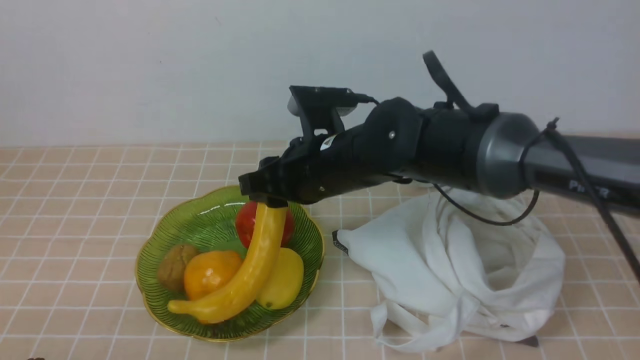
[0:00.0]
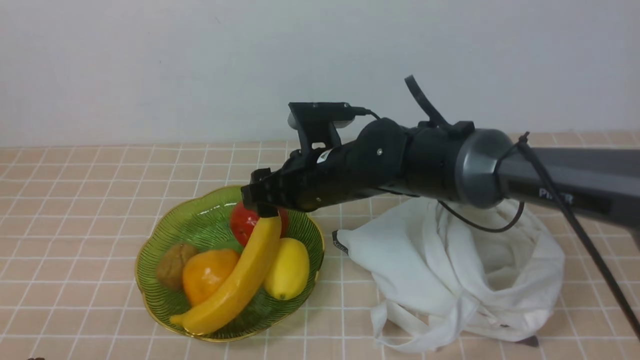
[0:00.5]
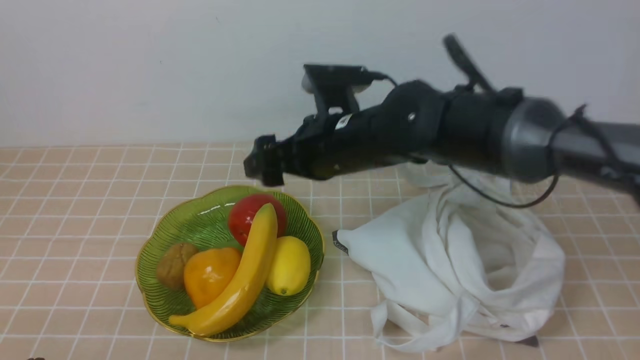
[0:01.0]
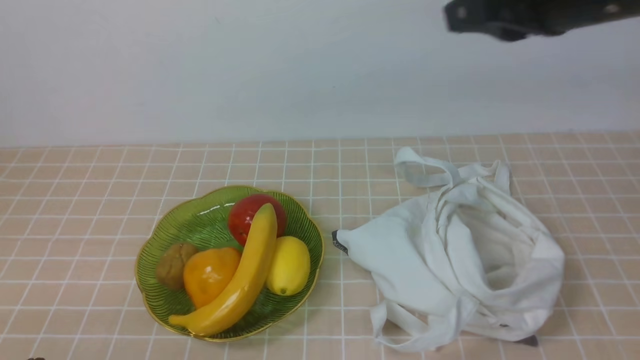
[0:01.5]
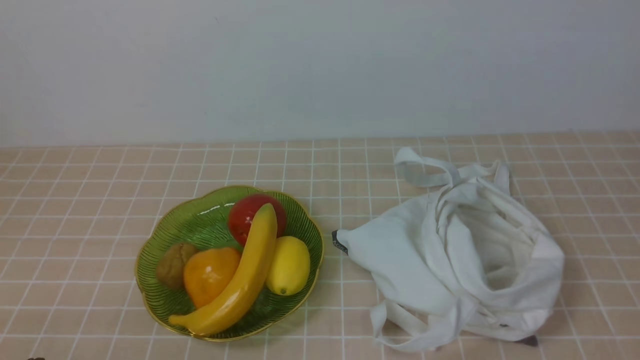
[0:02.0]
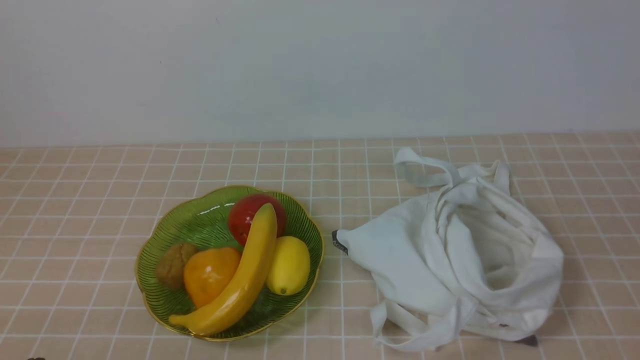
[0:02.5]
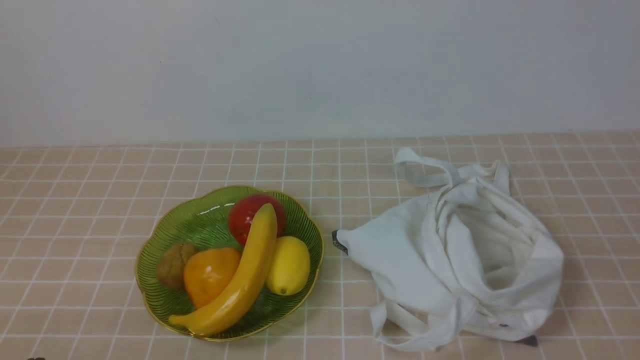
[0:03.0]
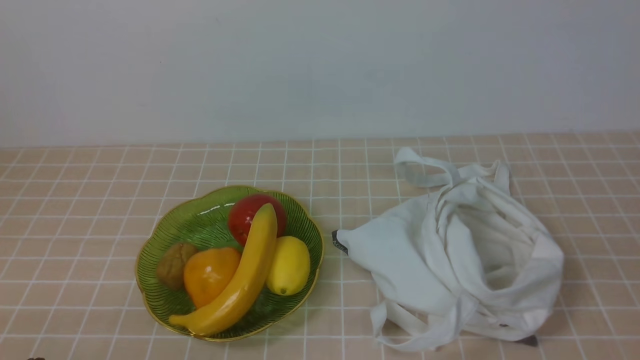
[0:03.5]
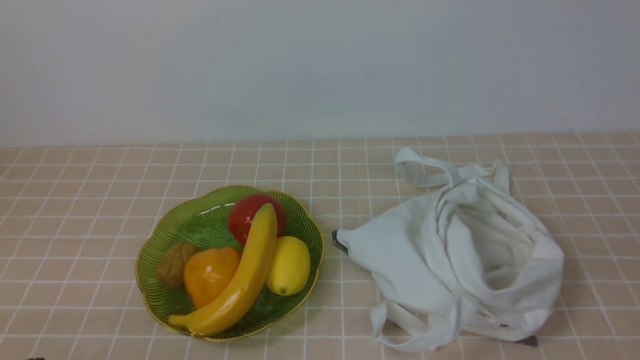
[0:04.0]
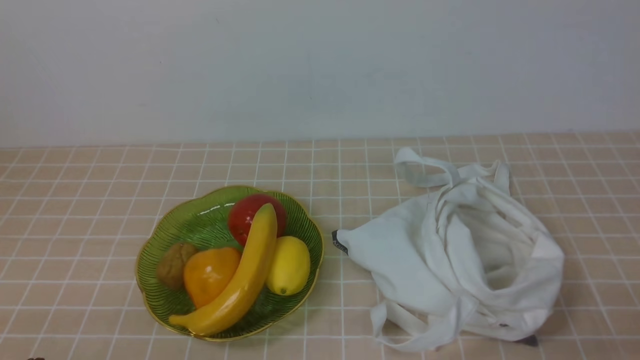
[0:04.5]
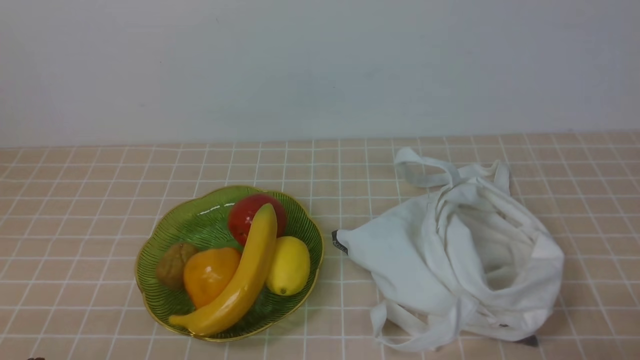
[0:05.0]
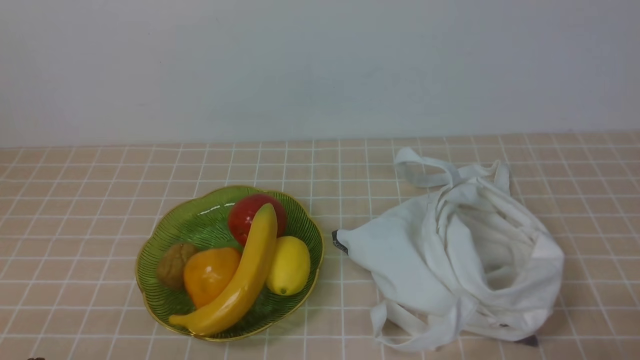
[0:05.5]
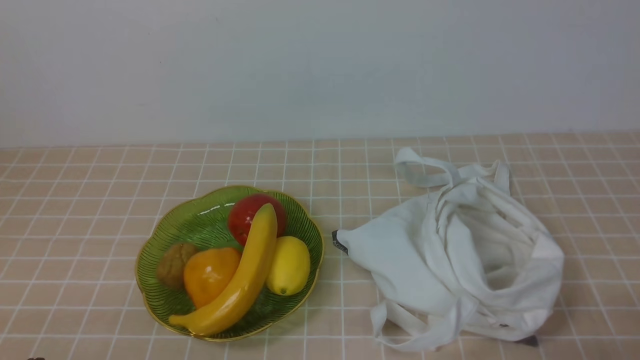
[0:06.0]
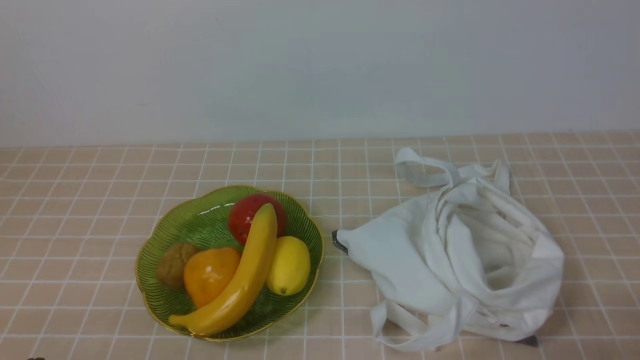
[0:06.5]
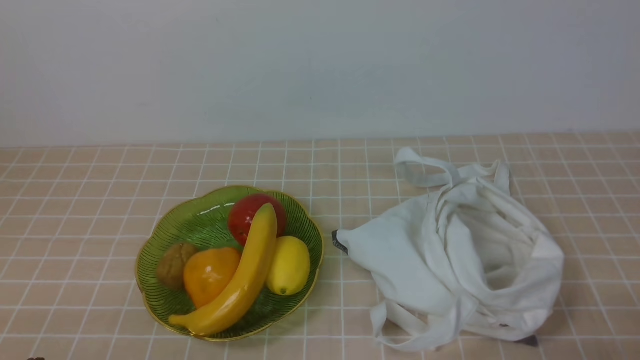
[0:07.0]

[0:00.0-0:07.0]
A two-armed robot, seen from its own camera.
0:00.0 to 0:02.0: The right gripper is displaced to the right, upward and backward by about 35 cm, and closes up.
0:05.0 to 0:07.0: Neither gripper changes place.

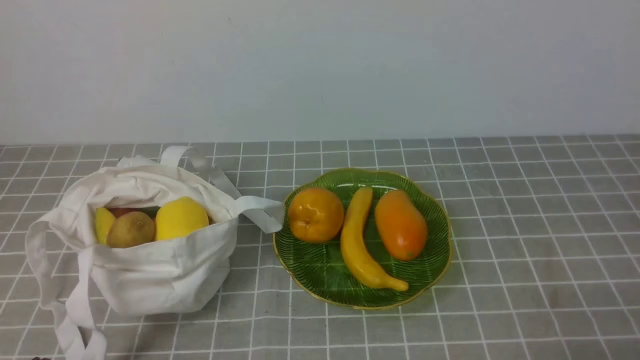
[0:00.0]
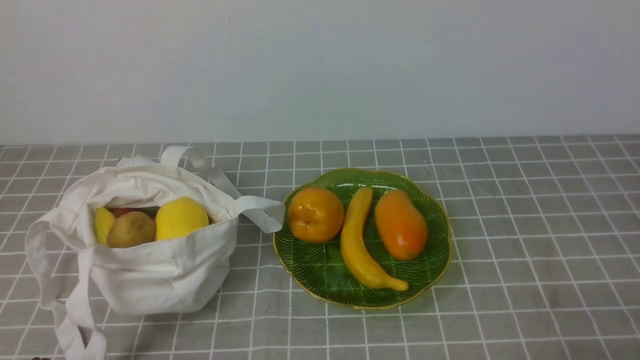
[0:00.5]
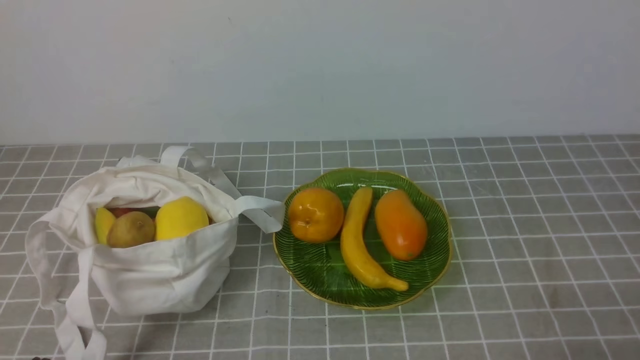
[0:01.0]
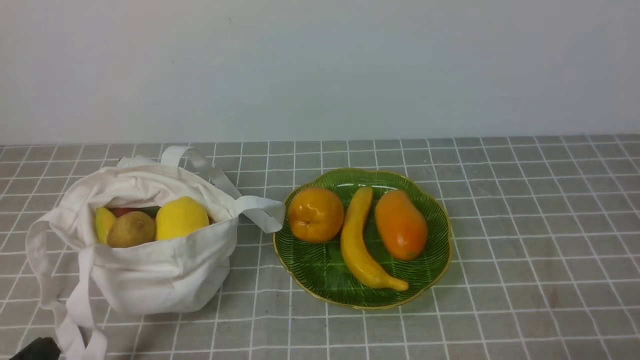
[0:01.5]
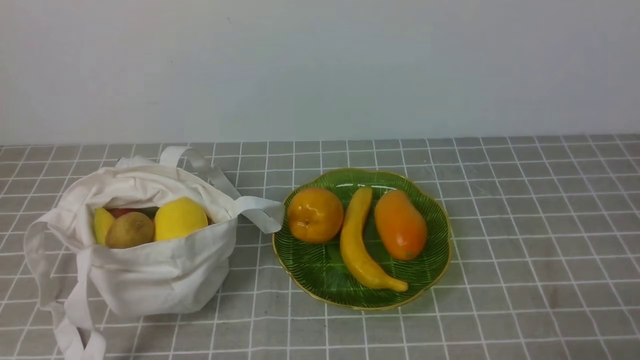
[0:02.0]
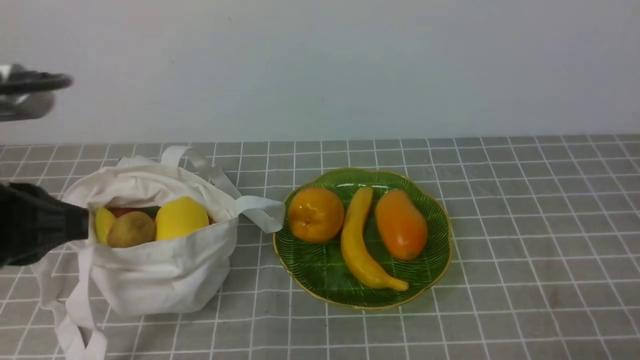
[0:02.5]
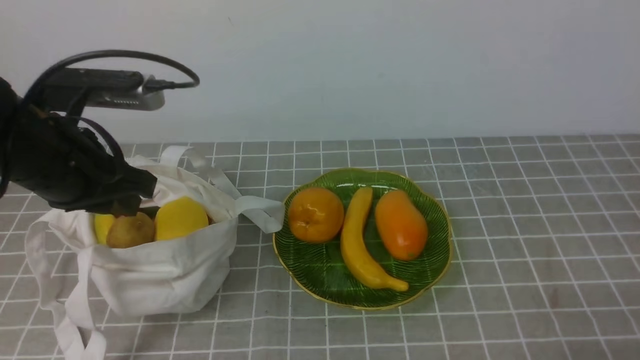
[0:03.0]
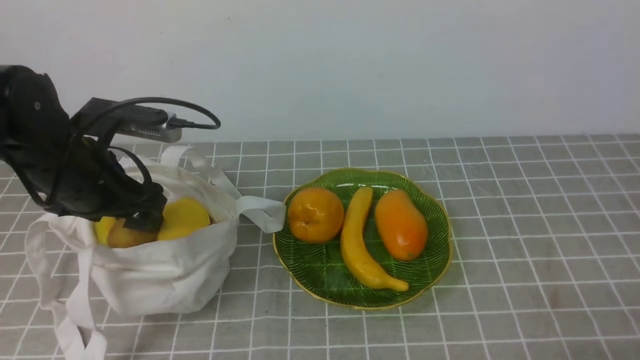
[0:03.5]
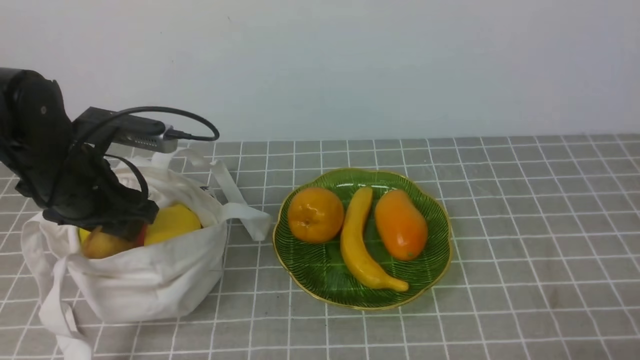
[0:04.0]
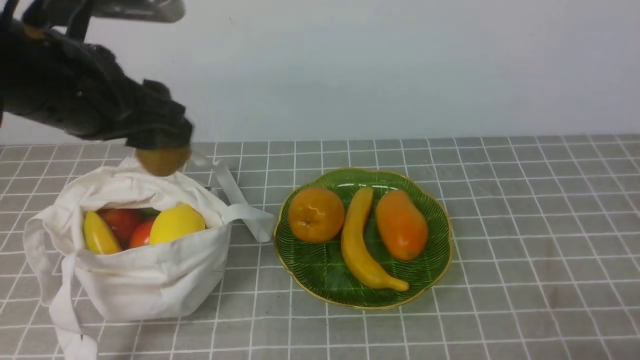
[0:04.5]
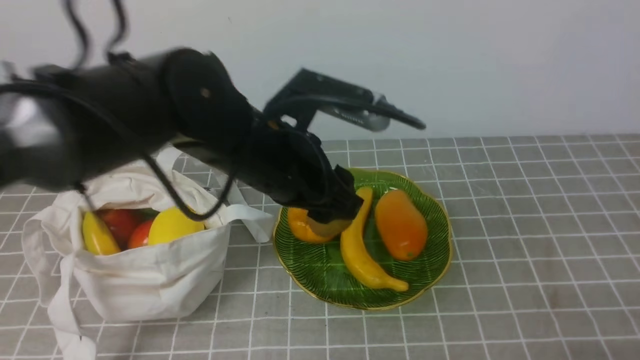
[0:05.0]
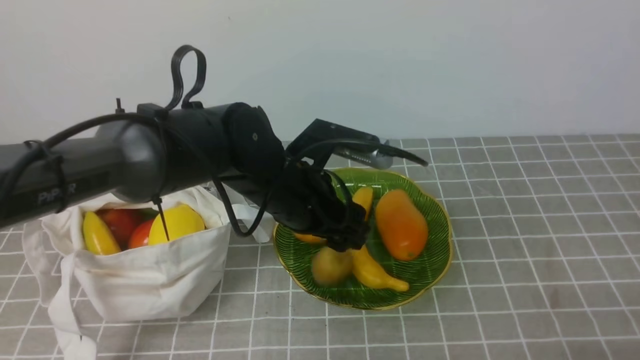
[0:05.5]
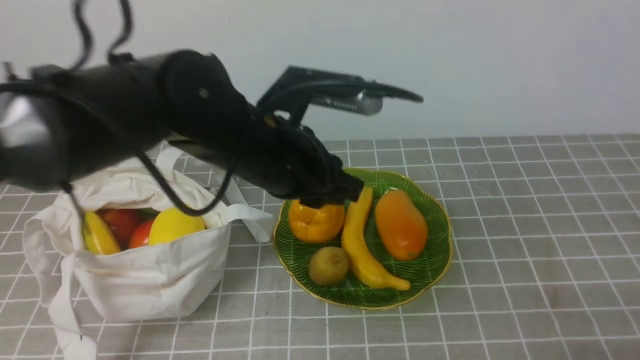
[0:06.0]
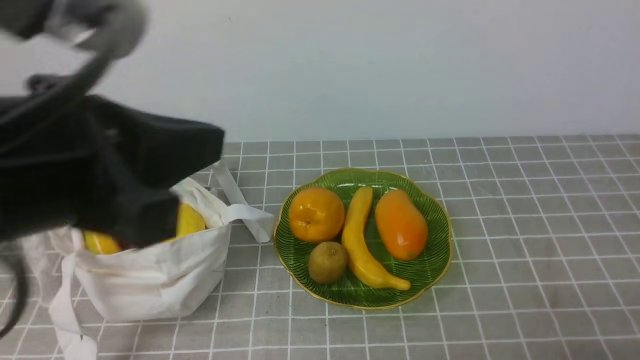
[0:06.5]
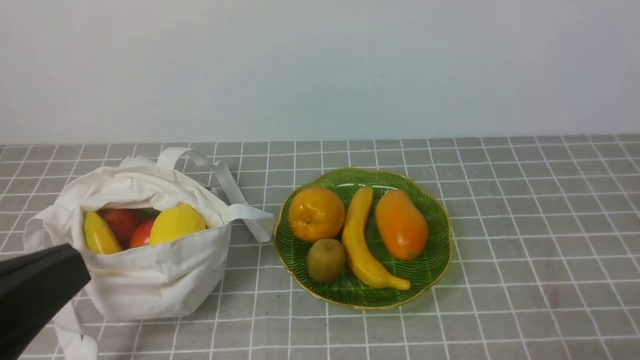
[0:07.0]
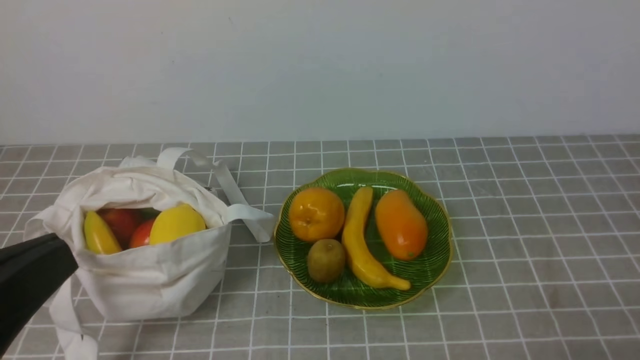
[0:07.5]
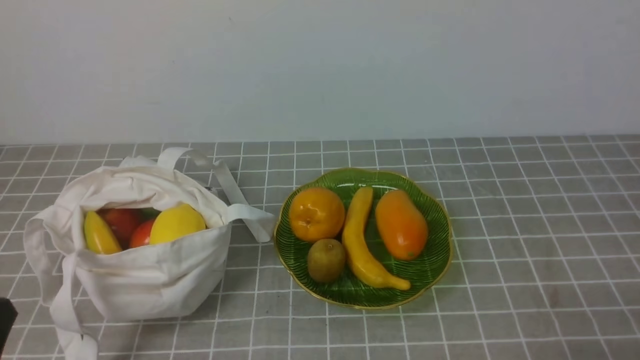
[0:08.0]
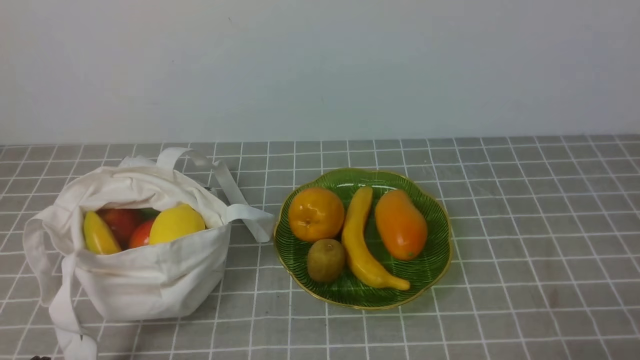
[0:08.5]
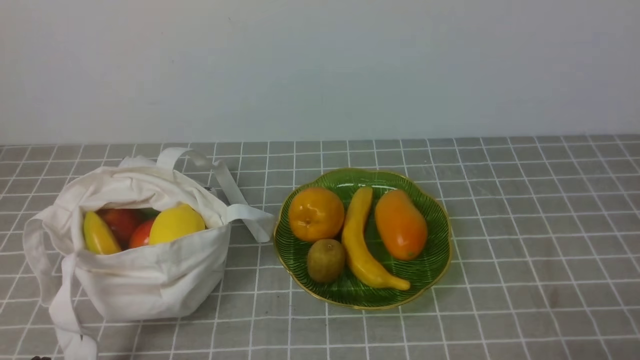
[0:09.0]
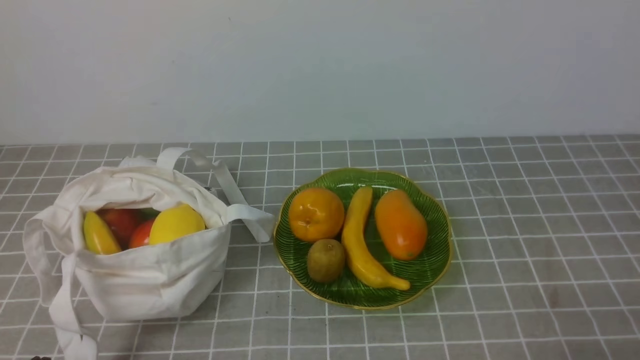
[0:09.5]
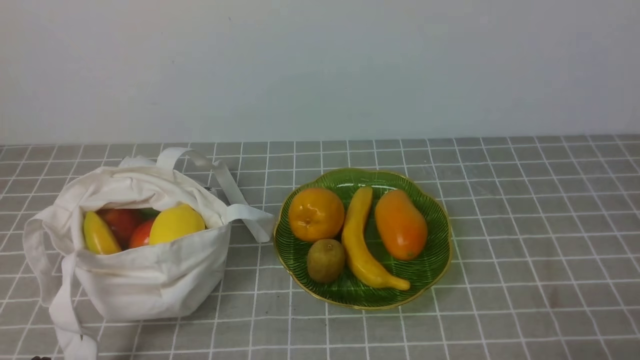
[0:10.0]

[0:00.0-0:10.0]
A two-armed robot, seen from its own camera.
Step, 0:00.0 to 0:03.5: use the left arm to grab a kiwi from the bag.
Step, 0:04.5 to 0:05.5: use the left arm to put the kiwi into the empty plate on the right.
0:02.0 to 0:04.0: The left gripper is displaced forward by about 25 cm, and opens up.
0:04.0 to 0:06.0: The left gripper heads to the right, covering roughly 20 cm.
0:06.0 to 0:08.0: The left gripper goes roughly 30 cm backward and to the left, and closes.

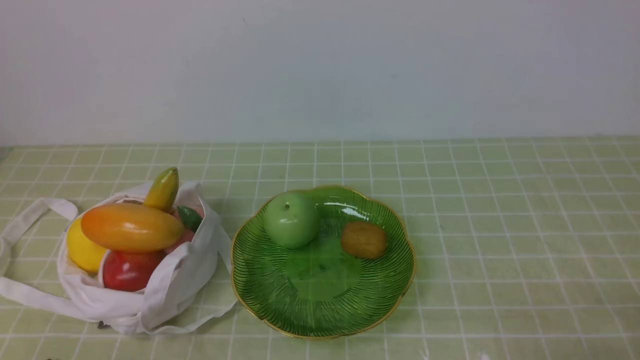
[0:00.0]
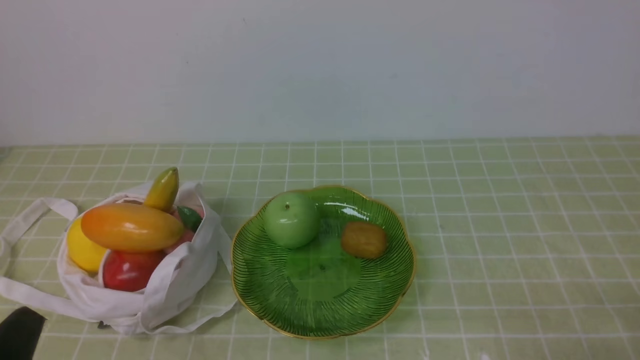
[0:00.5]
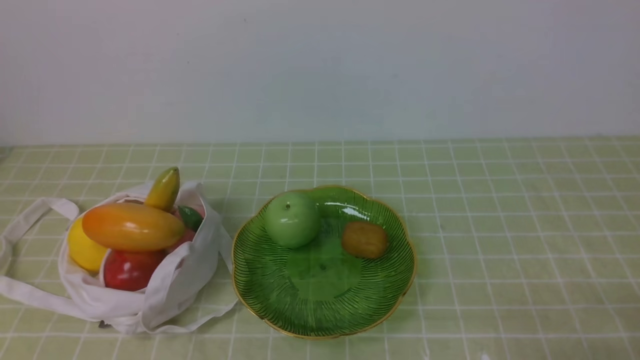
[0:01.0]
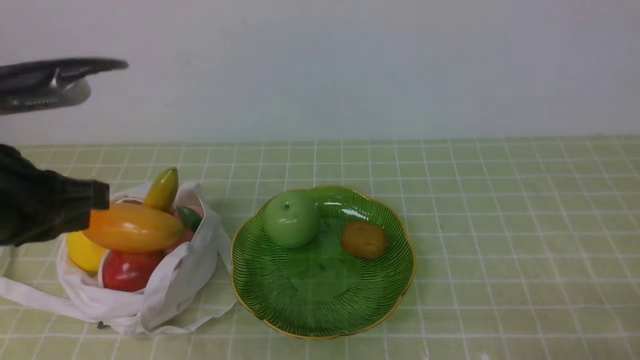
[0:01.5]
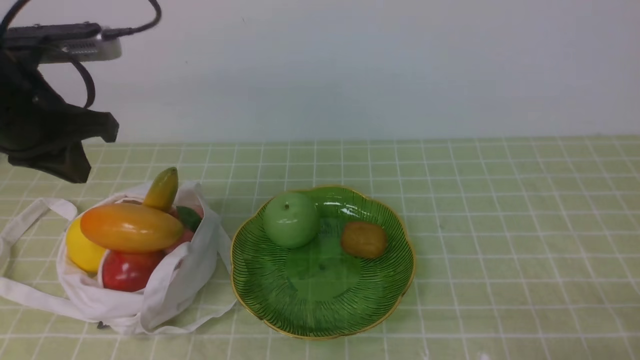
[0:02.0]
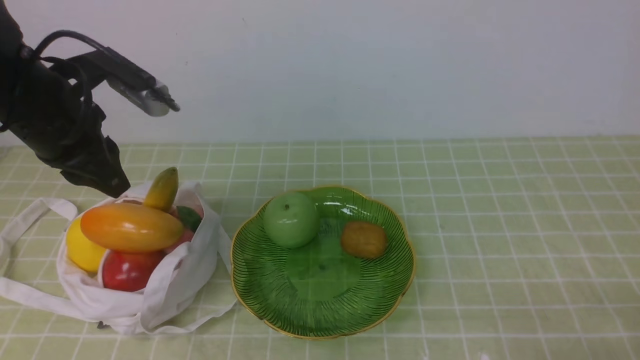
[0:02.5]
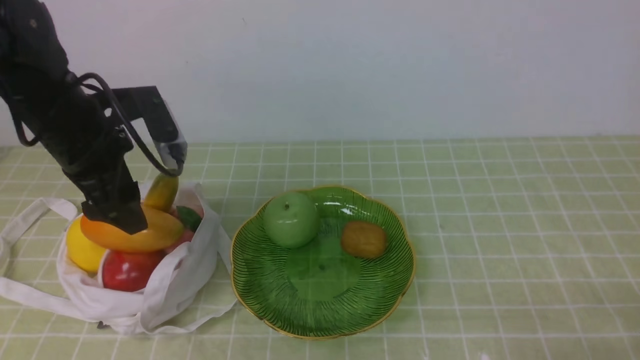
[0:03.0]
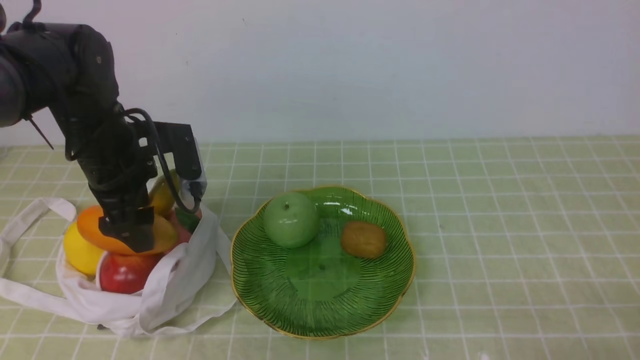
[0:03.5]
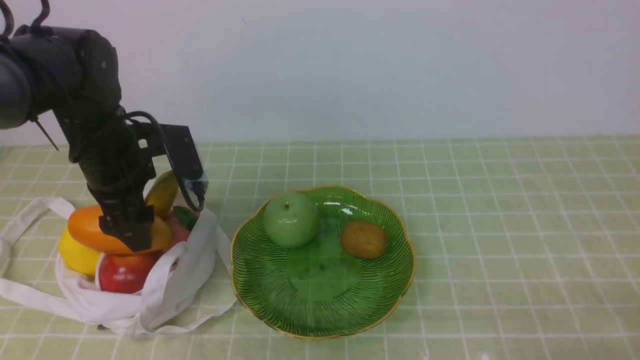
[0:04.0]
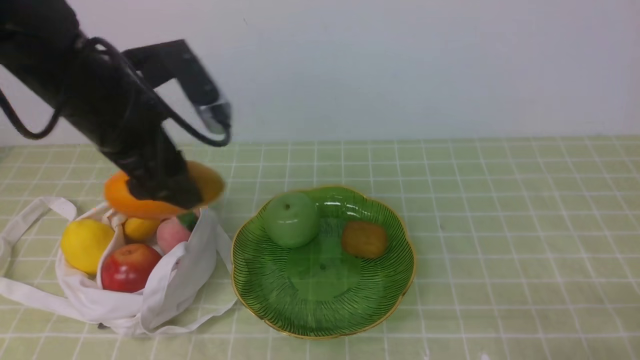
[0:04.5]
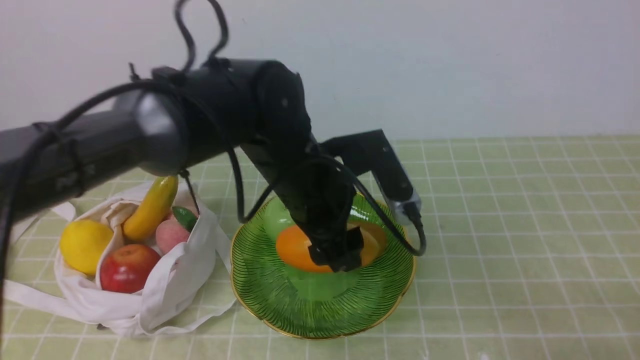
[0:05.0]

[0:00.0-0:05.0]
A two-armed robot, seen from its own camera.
Step, 0:00.0 to 0:04.0: use the left arm to grab a mango from the bag.
0:00.0 to 0:02.5: The left gripper is displaced forward and upward by some 30 cm.
0:02.5 to 0:05.0: The left gripper travels to the right by about 20 cm, and opens.
